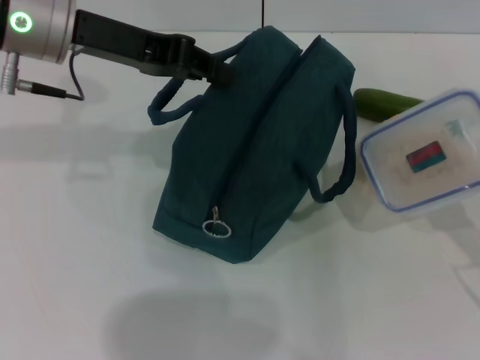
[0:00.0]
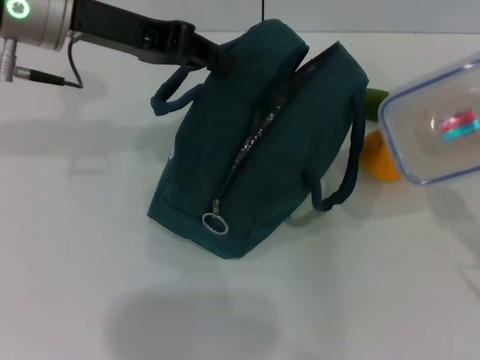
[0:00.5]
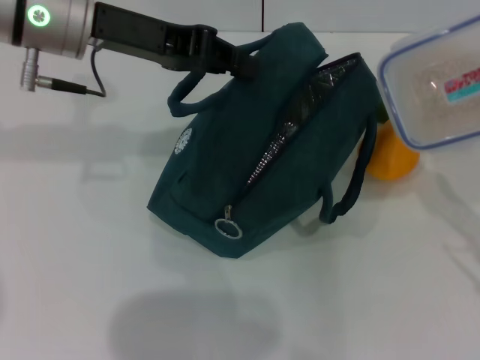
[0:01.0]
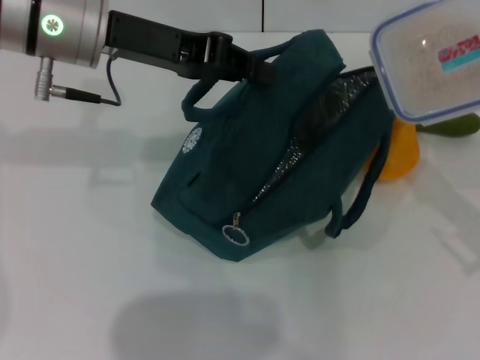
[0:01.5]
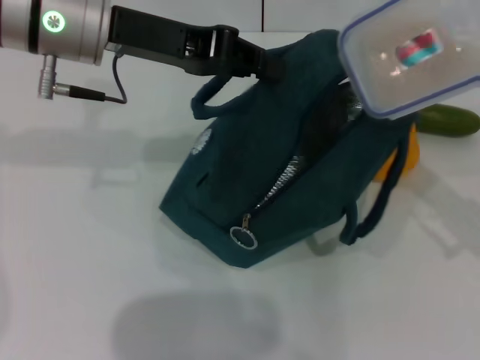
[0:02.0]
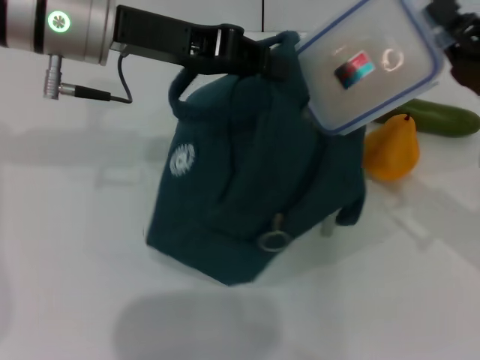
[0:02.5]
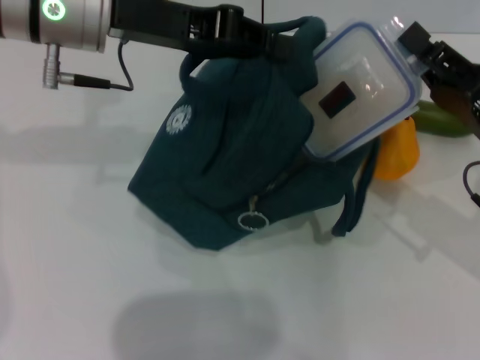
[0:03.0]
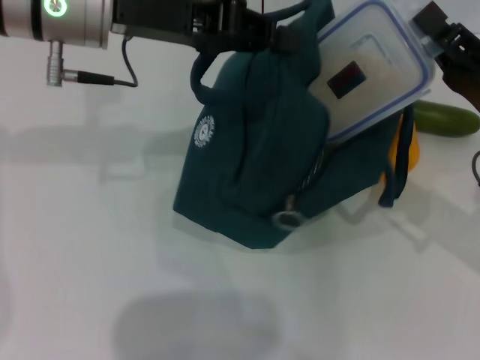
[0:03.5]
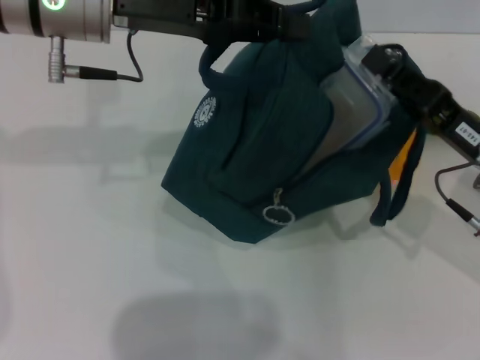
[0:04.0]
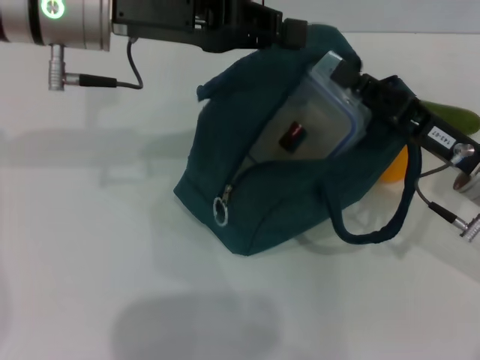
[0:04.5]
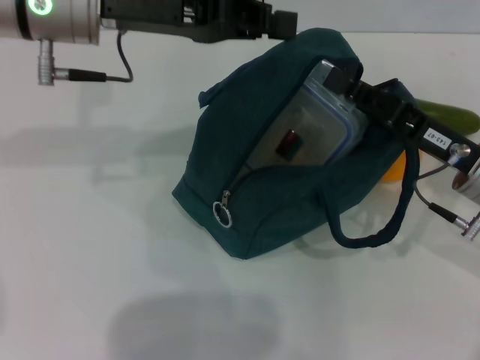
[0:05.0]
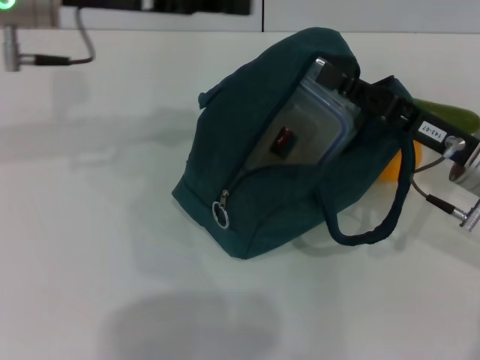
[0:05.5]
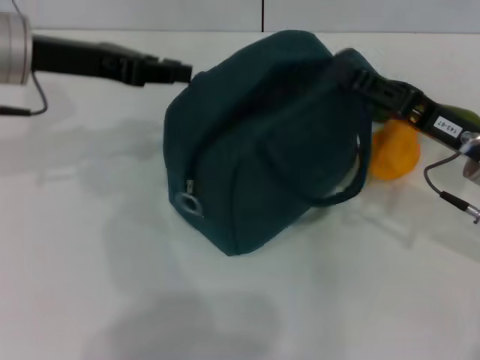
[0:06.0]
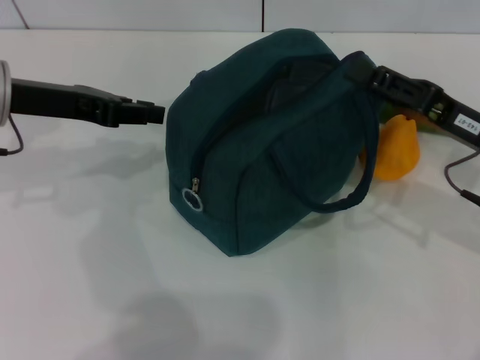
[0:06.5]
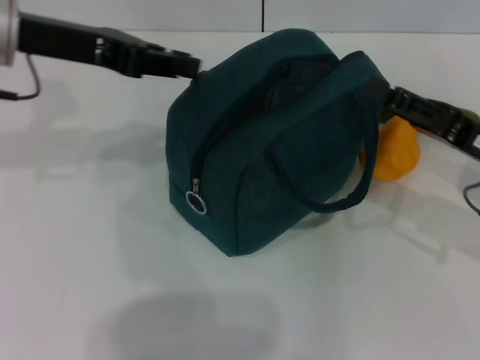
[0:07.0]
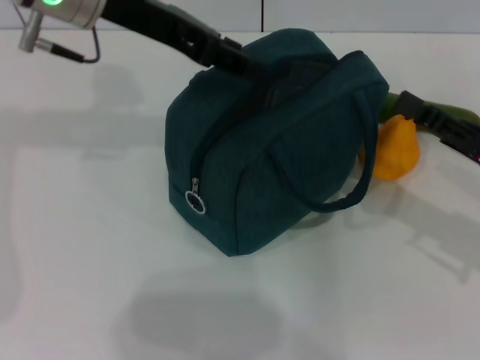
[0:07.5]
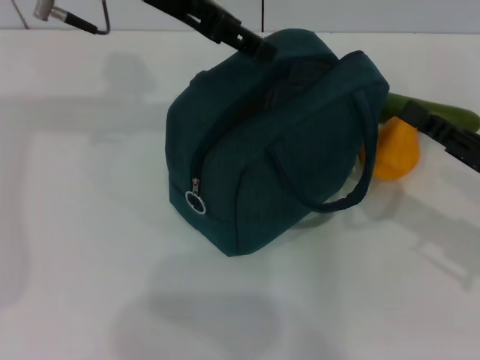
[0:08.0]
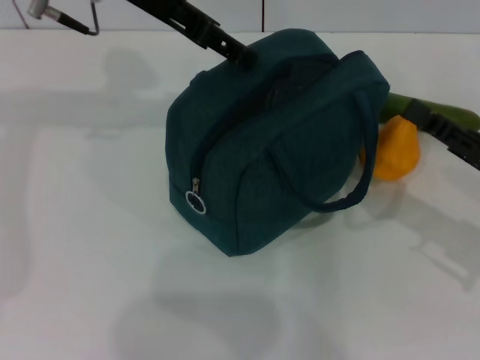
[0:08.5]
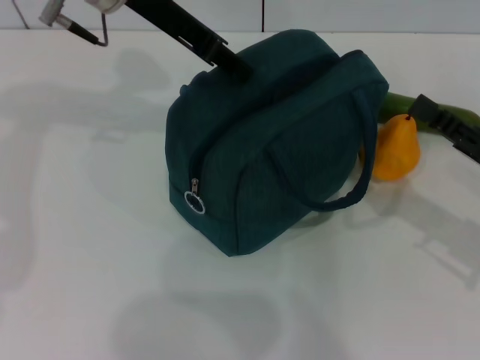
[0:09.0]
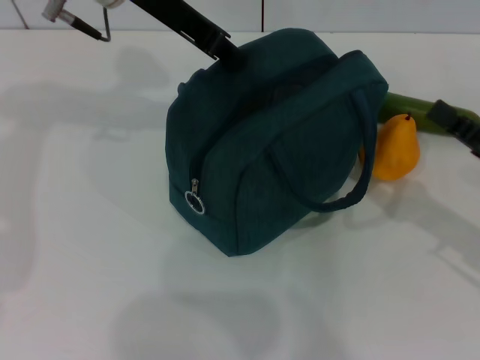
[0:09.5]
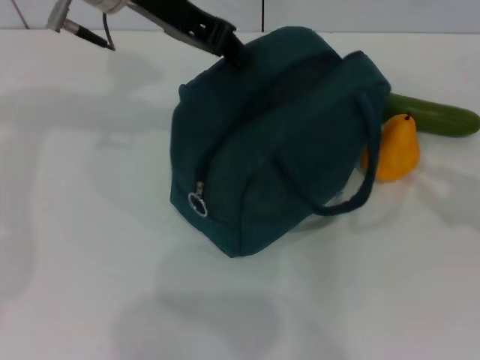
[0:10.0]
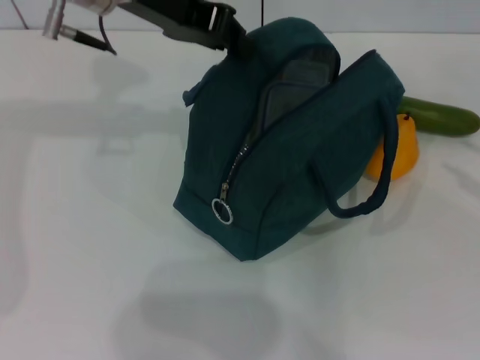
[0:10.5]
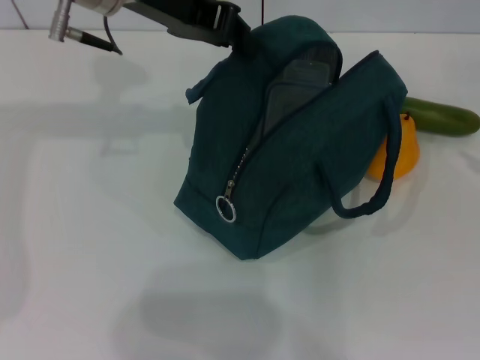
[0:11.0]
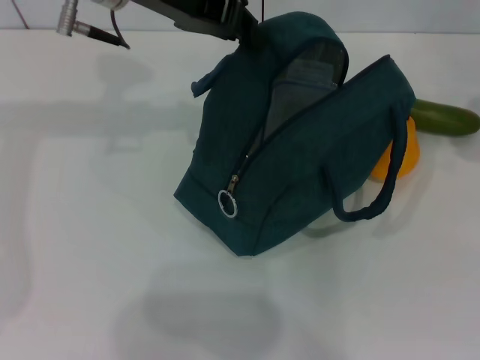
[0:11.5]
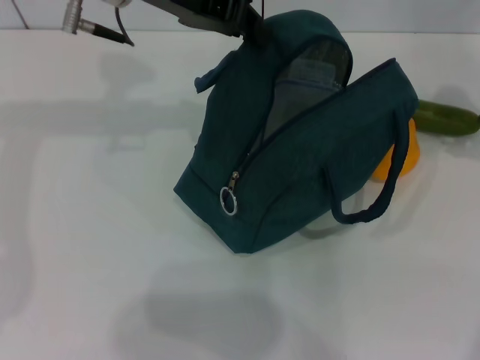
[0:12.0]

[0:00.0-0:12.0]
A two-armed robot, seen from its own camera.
Step, 0.0 to 5.5 s: Place the lunch box into the lunch bag with your right hand.
0.0 to 2.0 s: The right gripper heads forward and upward, covering approximately 10 cm.
2.0 to 4.0 s: The right gripper shifts about 5 cm to the left.
4.0 to 6.0 s: The left gripper shifts some 10 cm to the left.
6.0 to 8.0 s: The left gripper heads to the right and upward, covering some 10 cm, and opens, while the right gripper travels to the right by approximately 5 cm.
8.0 to 10.0 s: The right gripper heads to the right, covering roughly 10 cm; the left gripper closes.
10.0 to 12.0 s: The right gripper is displaced forward and upward by some 20 cm, and opens.

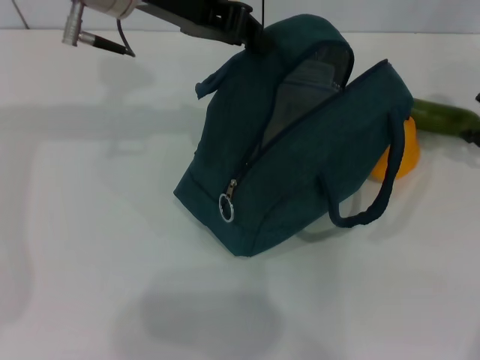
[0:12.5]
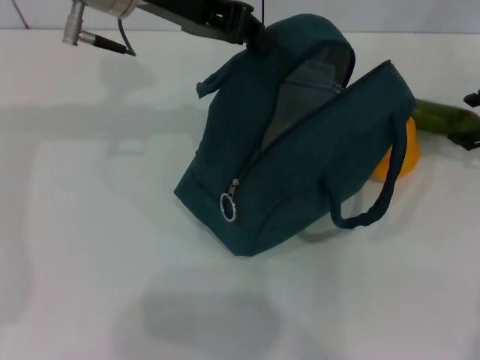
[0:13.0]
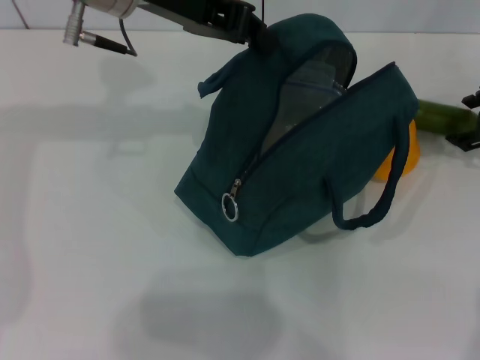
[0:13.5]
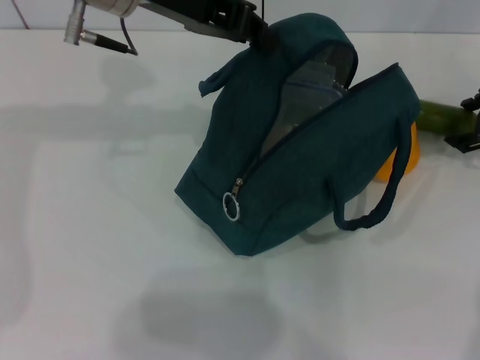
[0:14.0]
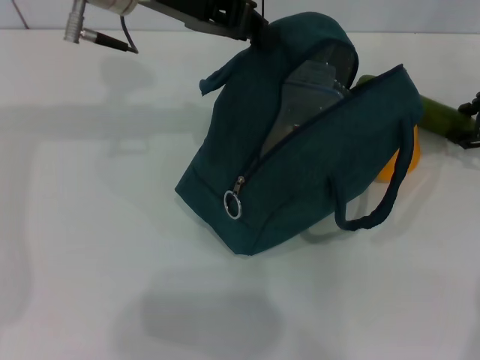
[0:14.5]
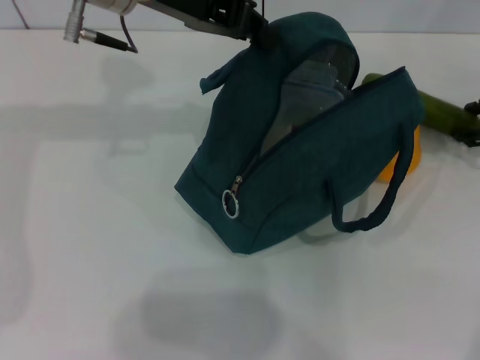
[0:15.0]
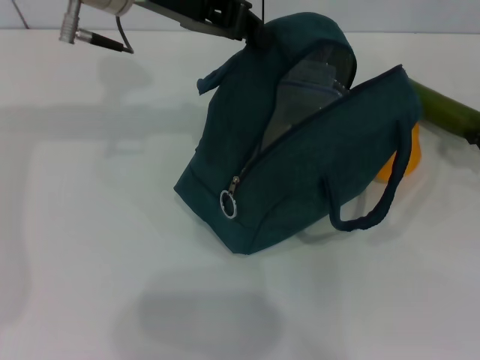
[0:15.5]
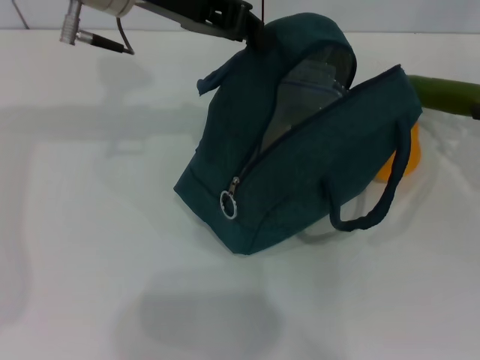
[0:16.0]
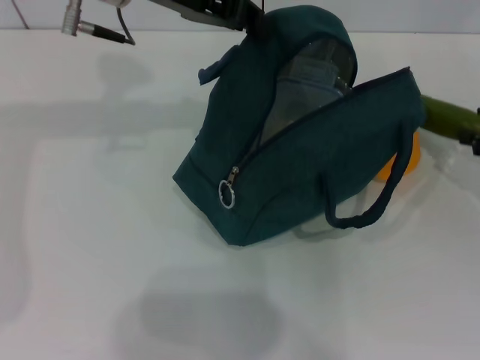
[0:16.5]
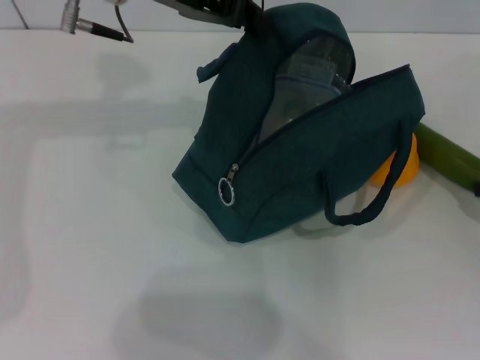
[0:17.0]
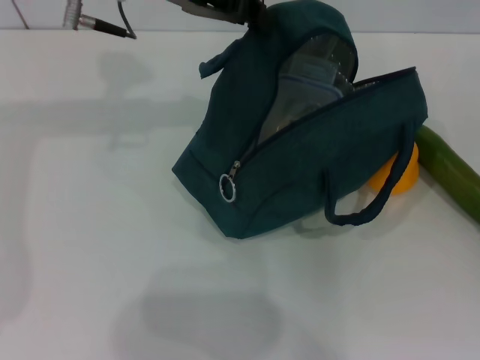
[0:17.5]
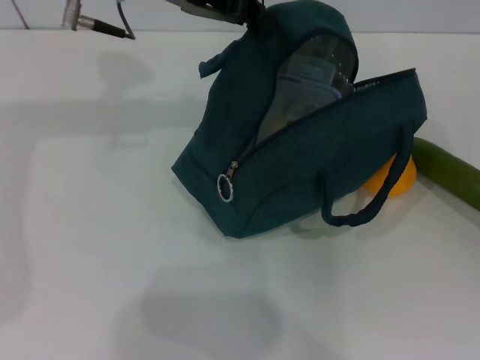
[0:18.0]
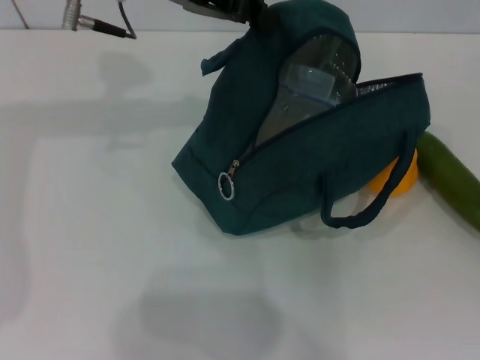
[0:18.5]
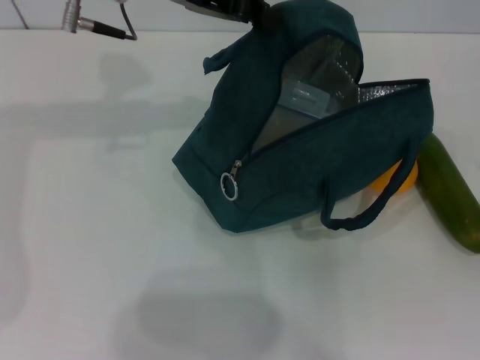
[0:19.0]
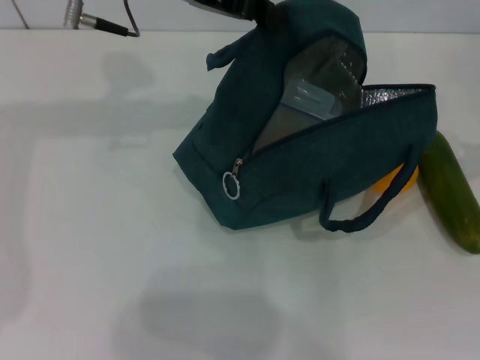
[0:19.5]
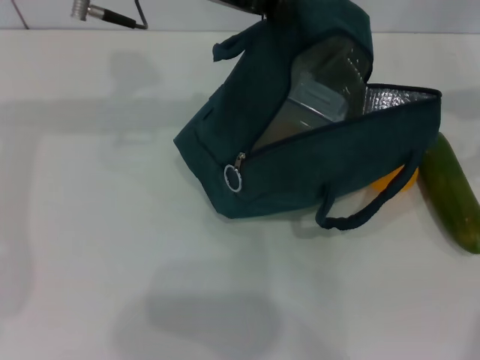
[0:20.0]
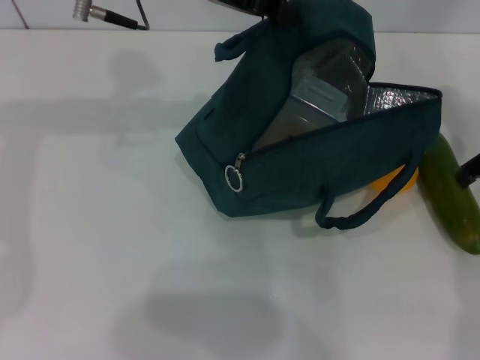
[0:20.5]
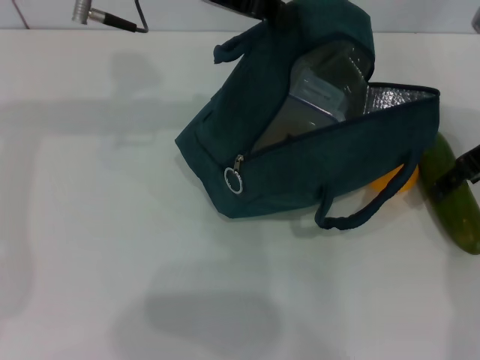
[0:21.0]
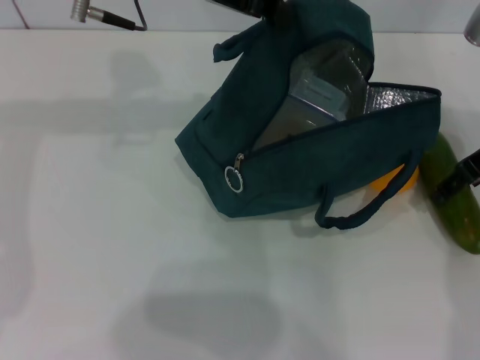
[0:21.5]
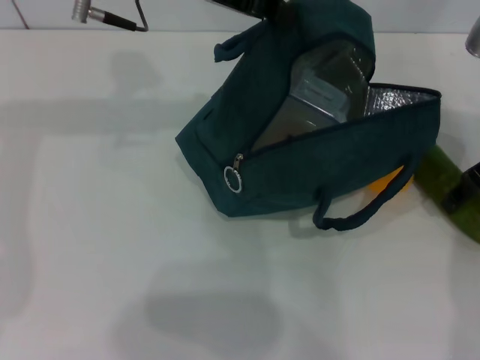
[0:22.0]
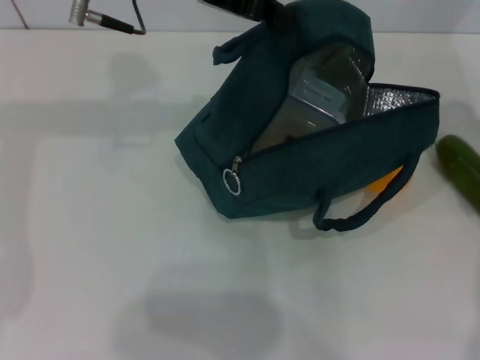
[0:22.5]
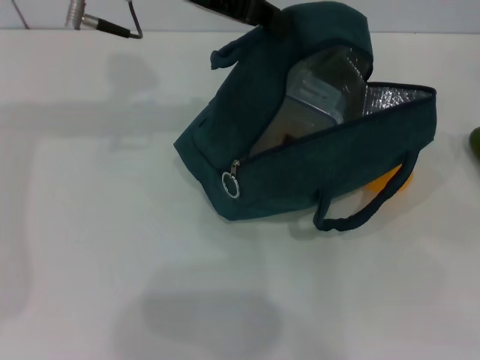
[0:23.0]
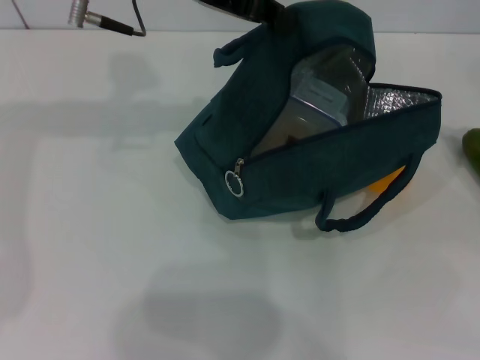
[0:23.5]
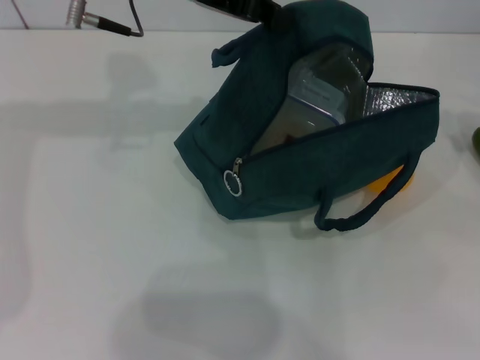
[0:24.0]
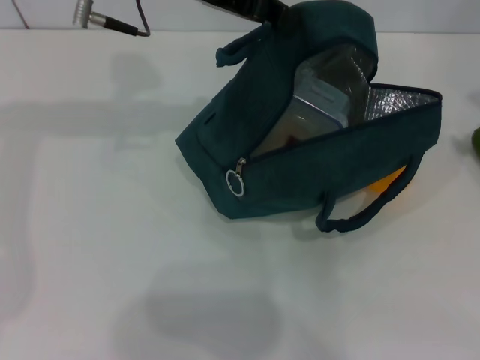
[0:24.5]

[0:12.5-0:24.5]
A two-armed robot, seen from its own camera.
12.5 to 14.5 s: There are only small adjustments of the grippers.
14.5 to 16.5 s: The right gripper moves backward and to the right, some 10 cm.
16.5 to 18.5 s: The right gripper goes approximately 5 cm backward.
18.5 to 20.5 s: The right gripper moves to the left, forward and upward, about 20 cm, and opens.
20.5 to 22.5 s: The right gripper closes up.
22.5 to 24.5 s: The right gripper moves to the right and upward, roughly 10 cm, and closes and opens again.

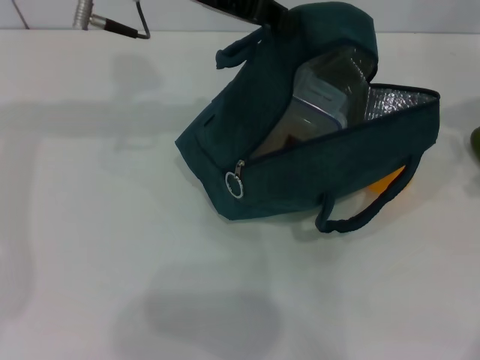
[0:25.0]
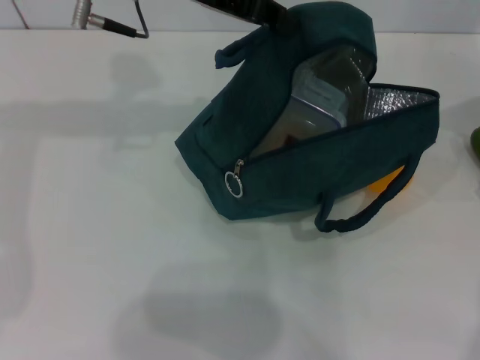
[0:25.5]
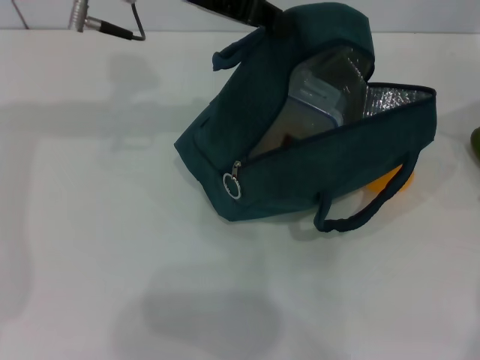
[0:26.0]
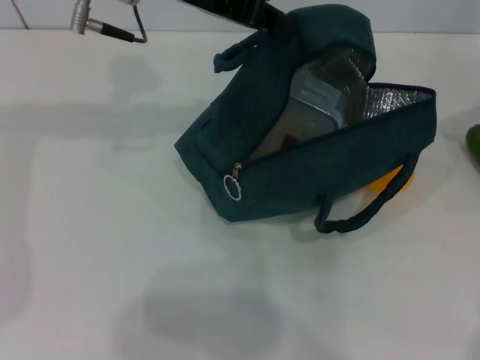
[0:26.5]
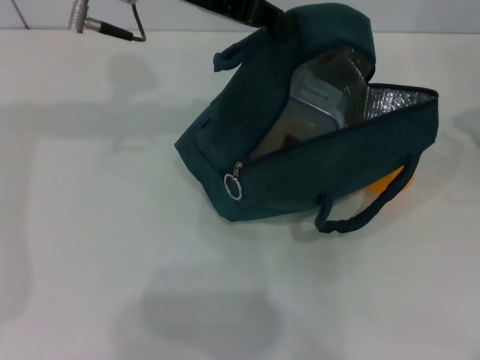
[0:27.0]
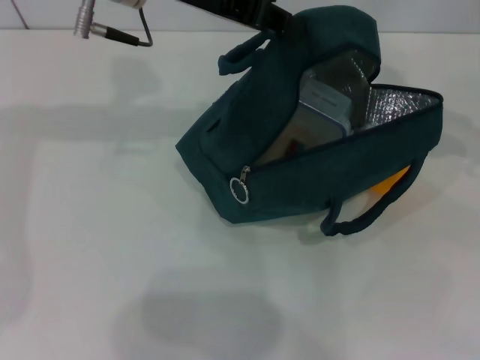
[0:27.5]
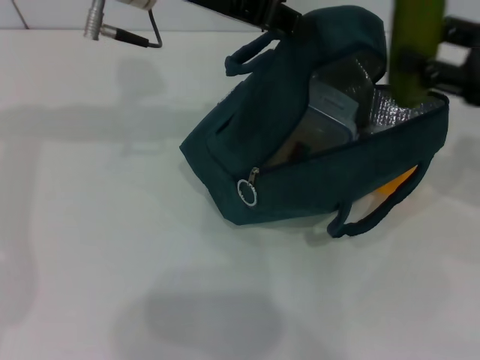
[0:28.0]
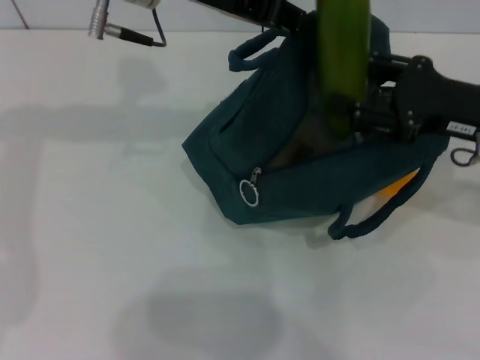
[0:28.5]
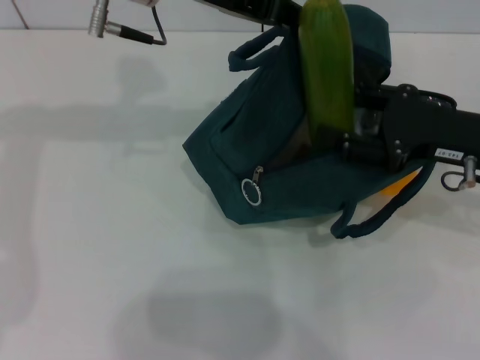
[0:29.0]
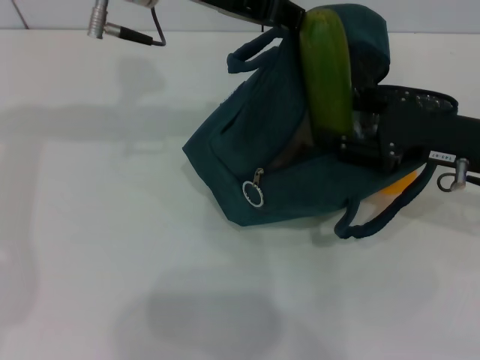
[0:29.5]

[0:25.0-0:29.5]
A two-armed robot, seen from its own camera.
25.0 to 27.0 s: There are only small adjustments of the grippers.
27.0 to 29.5 s: The right gripper moves to the left and downward, roughly 10 cm.
